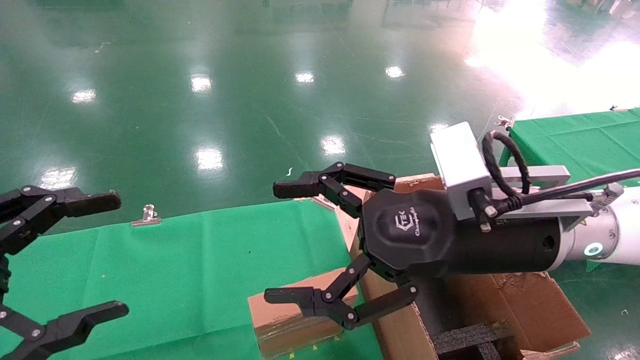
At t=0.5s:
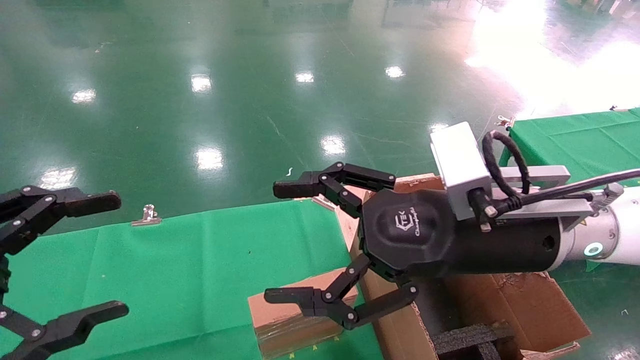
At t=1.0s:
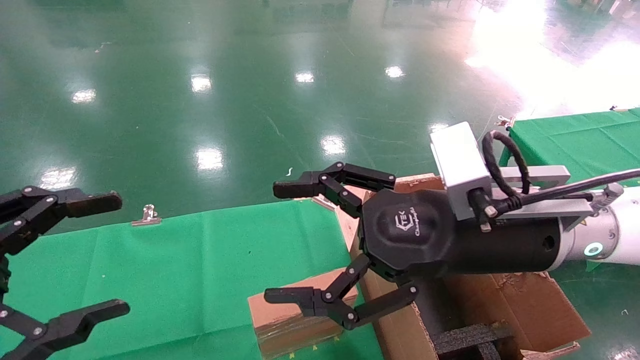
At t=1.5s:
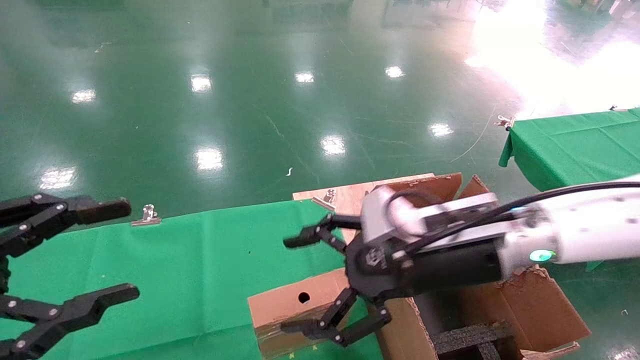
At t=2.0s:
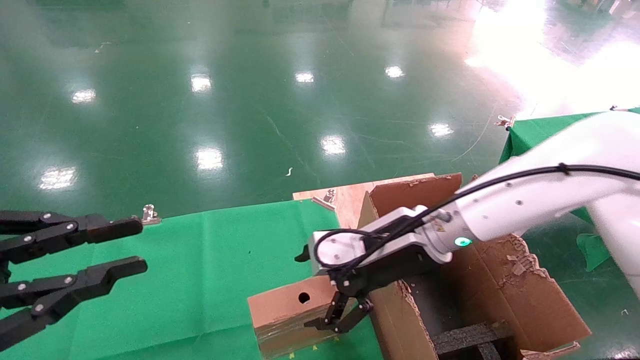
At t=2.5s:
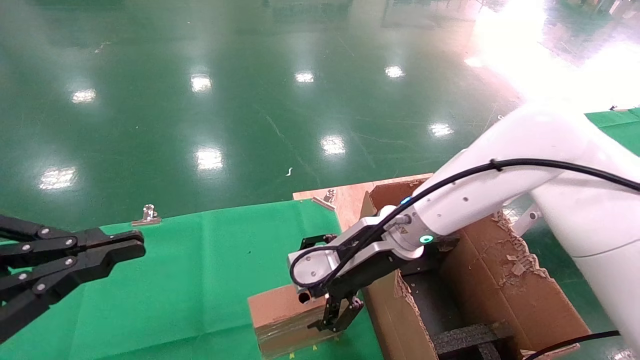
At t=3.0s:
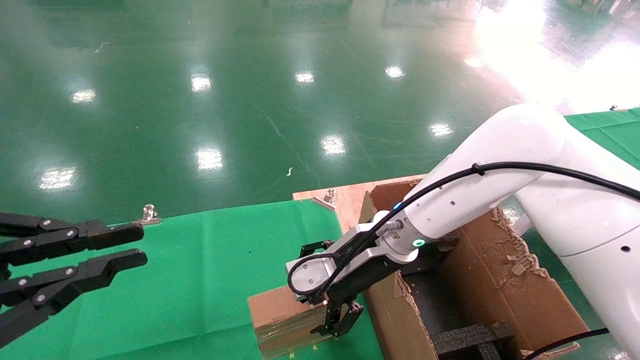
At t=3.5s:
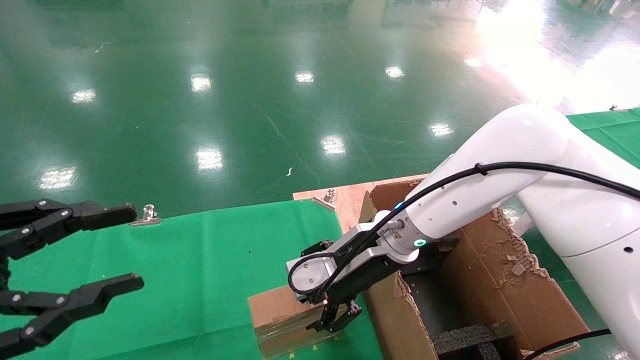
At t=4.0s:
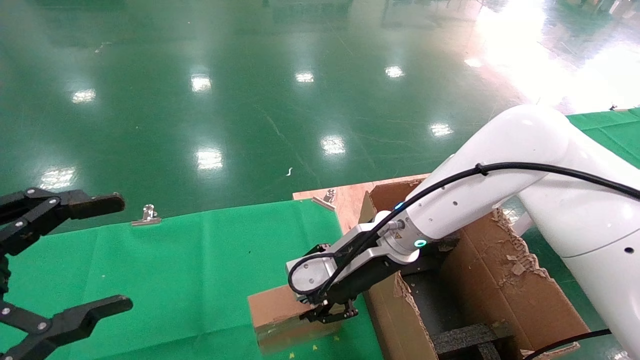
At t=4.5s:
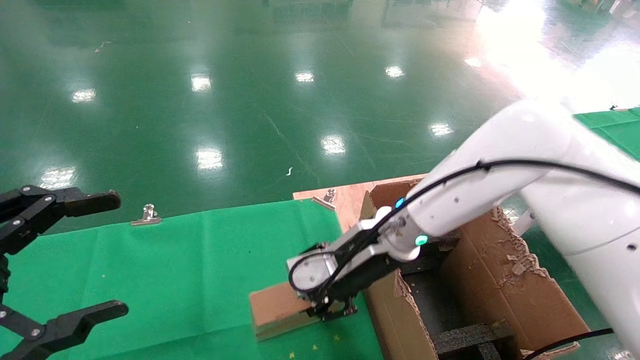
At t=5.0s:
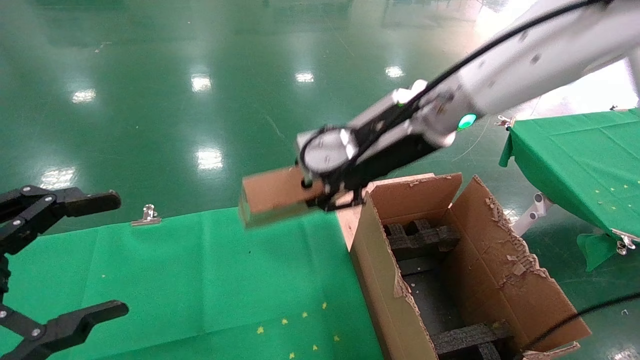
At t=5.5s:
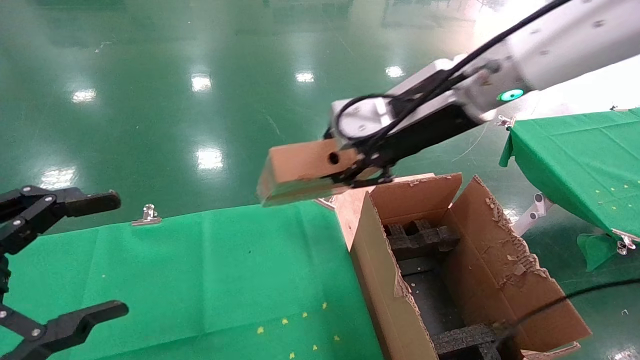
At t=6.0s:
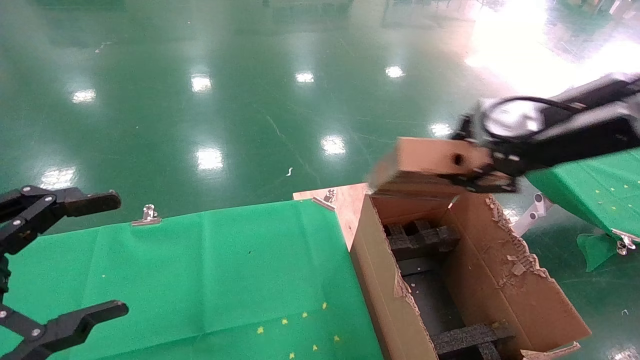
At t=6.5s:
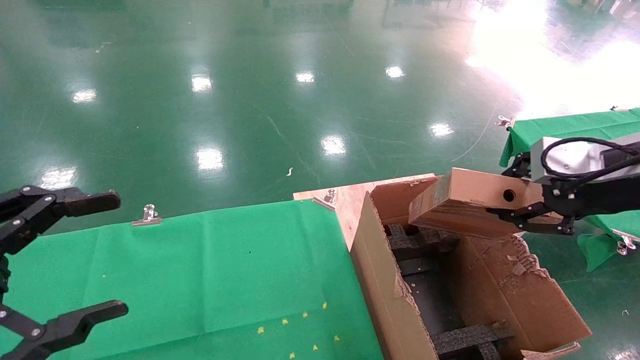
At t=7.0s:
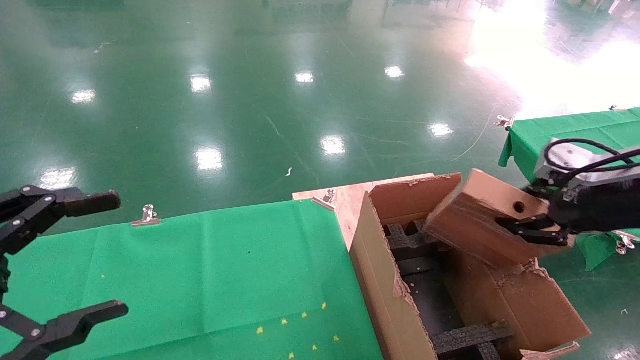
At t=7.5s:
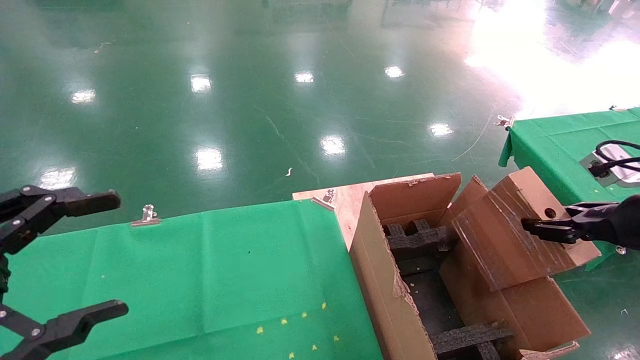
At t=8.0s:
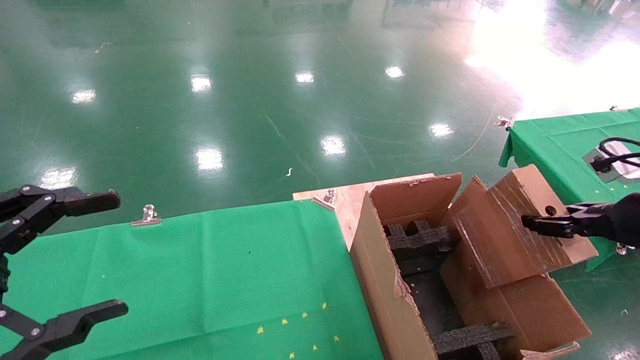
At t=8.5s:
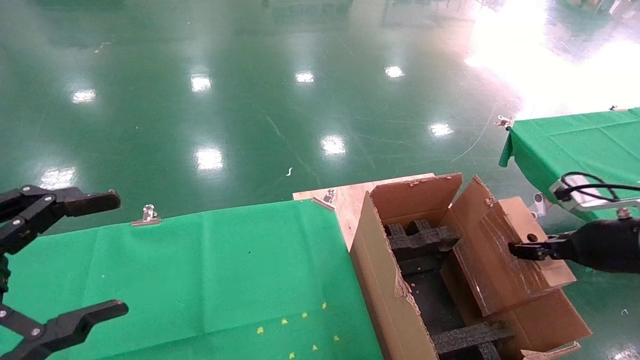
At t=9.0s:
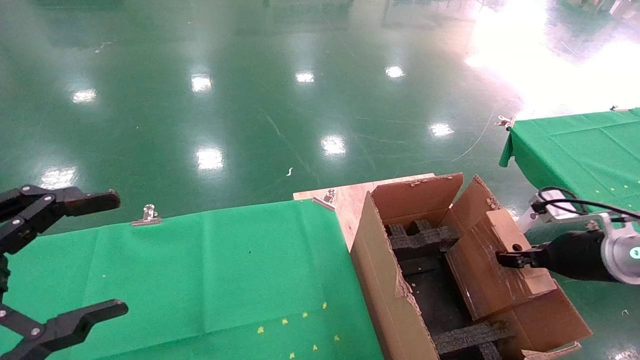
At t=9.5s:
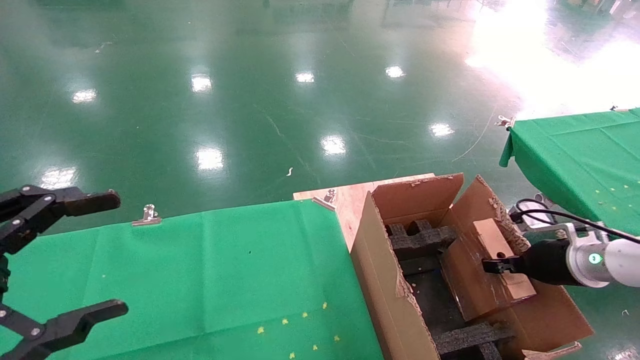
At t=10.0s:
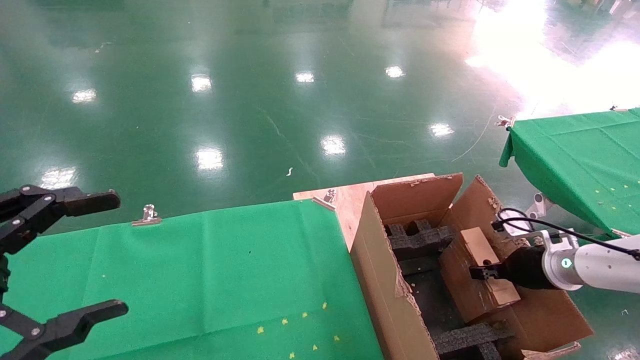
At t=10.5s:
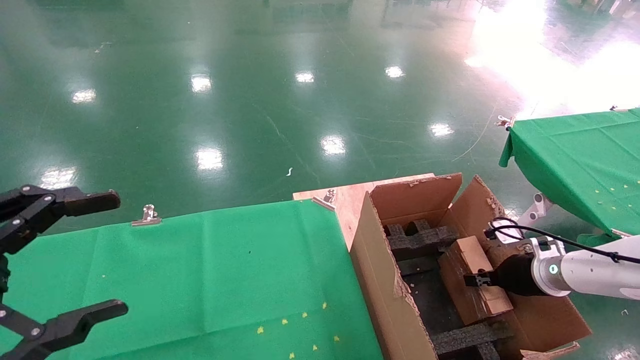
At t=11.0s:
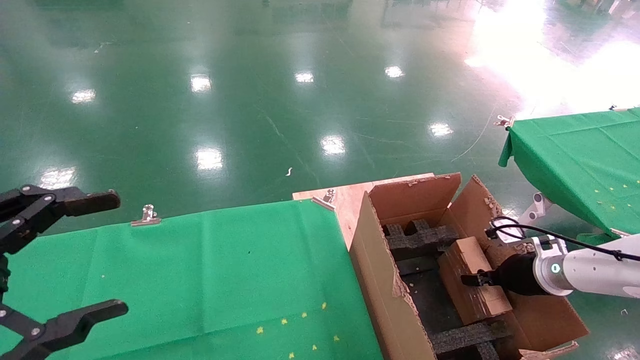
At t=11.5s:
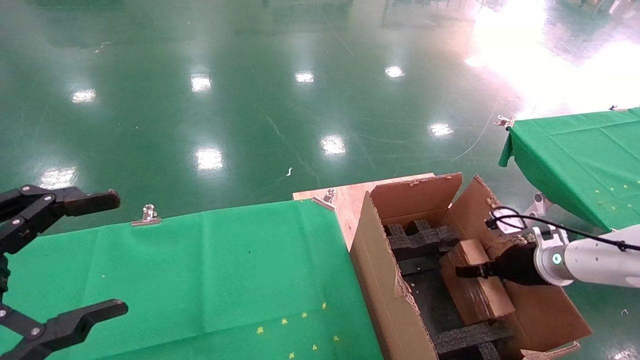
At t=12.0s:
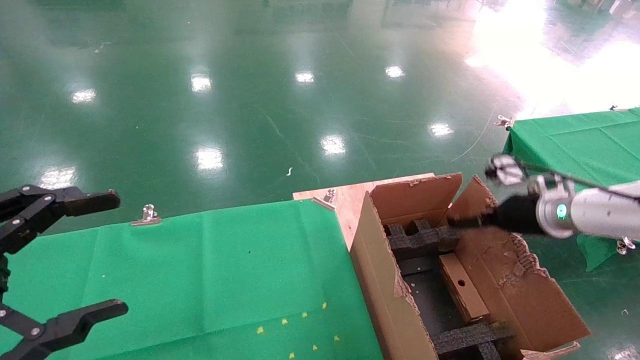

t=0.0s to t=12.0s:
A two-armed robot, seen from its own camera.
Task of the whole recording: using a robotic arm to pick up a cardboard box and palace it the carton.
Step, t=1.5s to t=3.5s: Pick up the mouse and the power cord paper box.
t=0.0s to t=2.0s: The right gripper moves forward and downward, approximately 10 cm, while the left gripper closes up.
t=2.0s to t=4.0s: The left gripper opens, while the right gripper closes its fingers.
t=4.0s to t=6.0s: The right gripper shifts about 30 cm to the right, upward and backward.
t=6.0s to t=8.0s: The right gripper is displaced downward and to the right by some 20 cm.
t=8.0s to t=10.0s: The right gripper heads downward and forward, covering about 20 cm.
t=10.0s to t=12.0s: The right gripper moves upward, approximately 10 cm, and opens.

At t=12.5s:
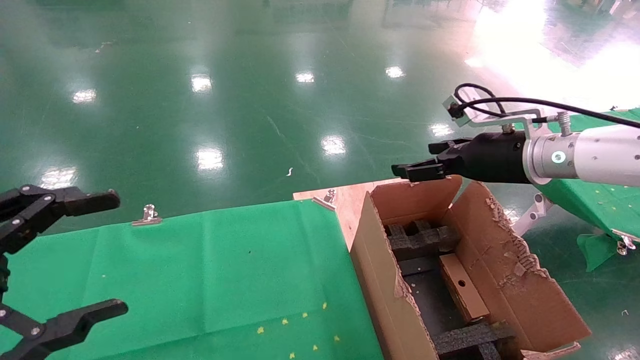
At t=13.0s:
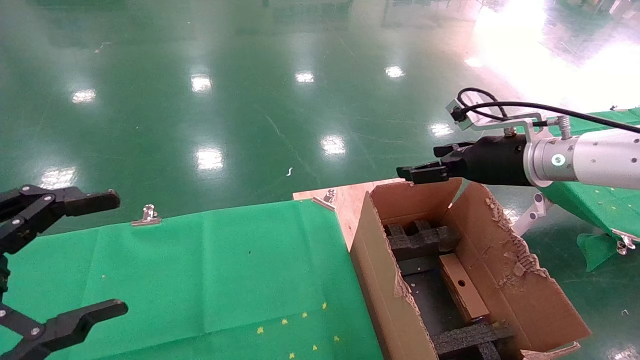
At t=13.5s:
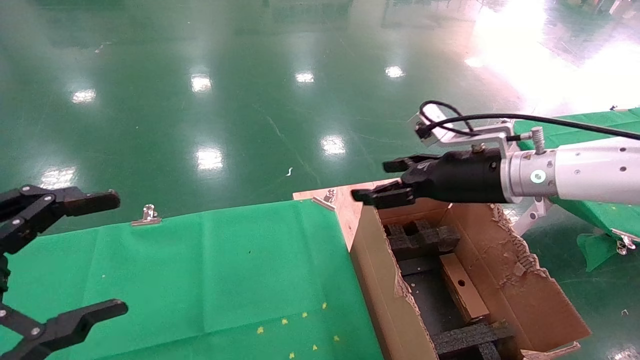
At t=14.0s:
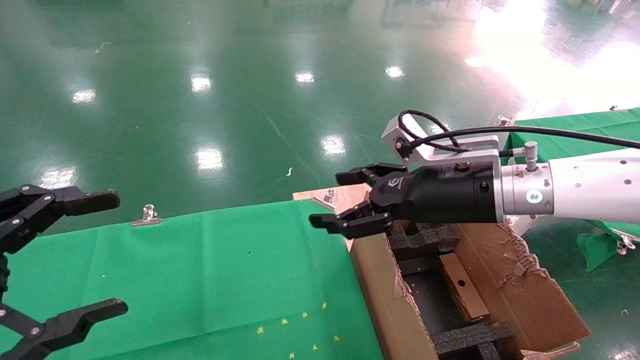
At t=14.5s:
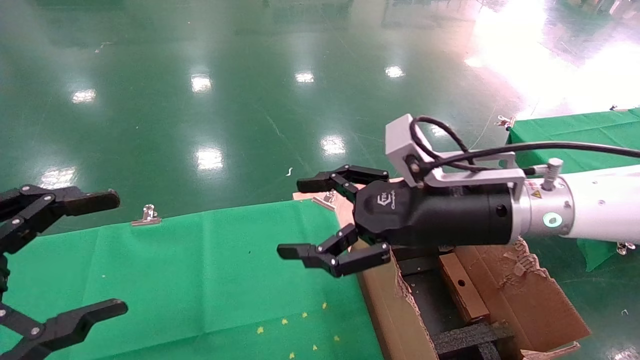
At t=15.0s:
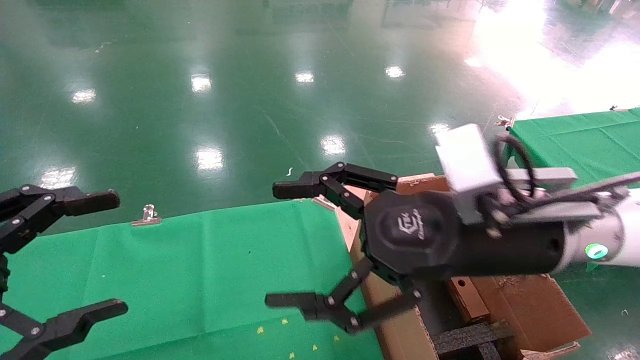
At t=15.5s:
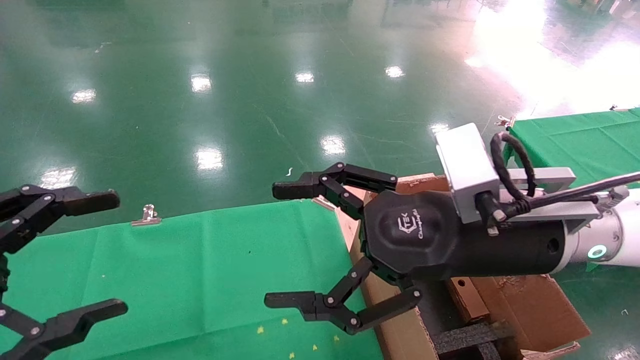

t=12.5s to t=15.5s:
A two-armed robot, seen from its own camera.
Task of the whole recording: using a robotic arm to pick up a cardboard box and palace it the carton.
t=12.5s to t=14.0s: The right gripper is displaced to the left by approximately 10 cm.
t=14.0s to t=15.5s: The right gripper is displaced backward by some 10 cm.
